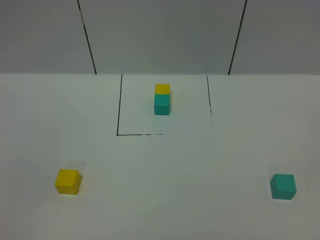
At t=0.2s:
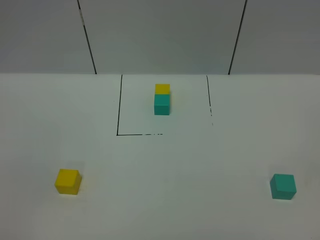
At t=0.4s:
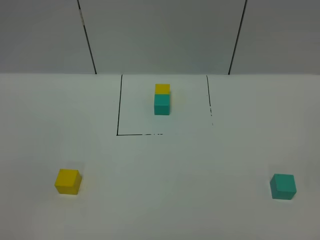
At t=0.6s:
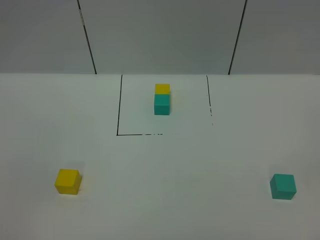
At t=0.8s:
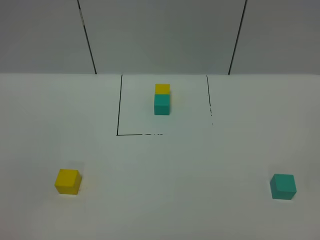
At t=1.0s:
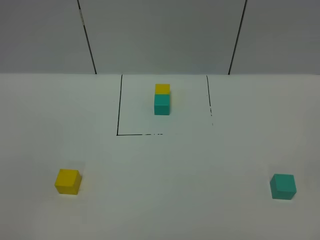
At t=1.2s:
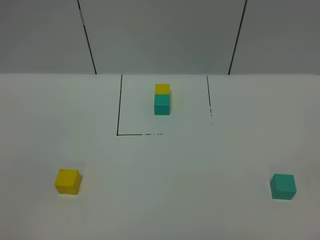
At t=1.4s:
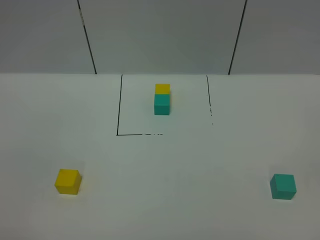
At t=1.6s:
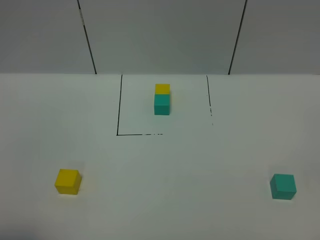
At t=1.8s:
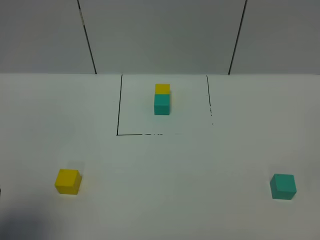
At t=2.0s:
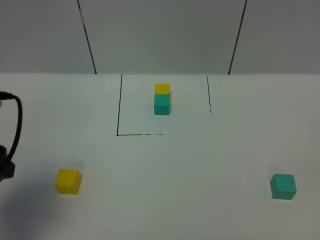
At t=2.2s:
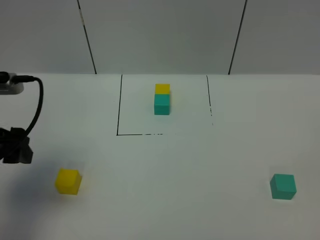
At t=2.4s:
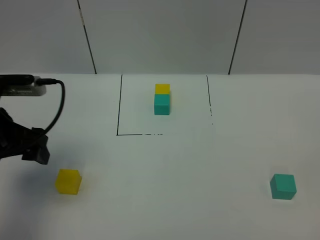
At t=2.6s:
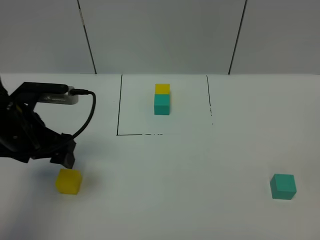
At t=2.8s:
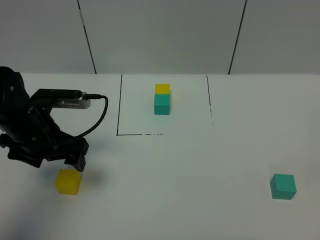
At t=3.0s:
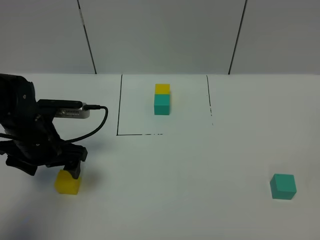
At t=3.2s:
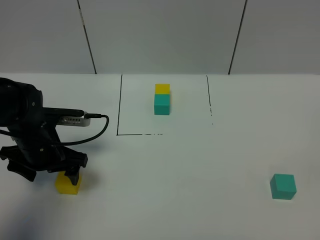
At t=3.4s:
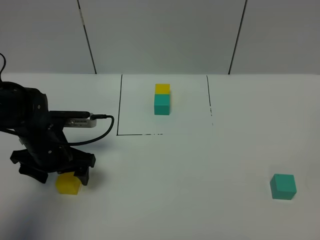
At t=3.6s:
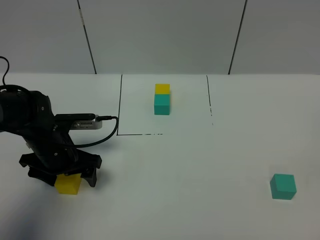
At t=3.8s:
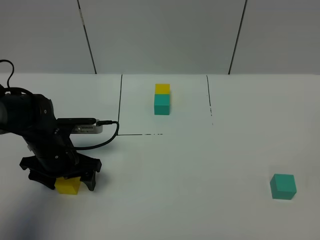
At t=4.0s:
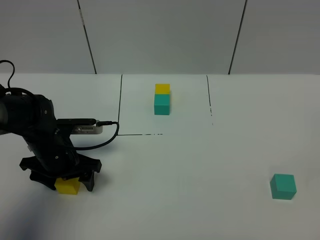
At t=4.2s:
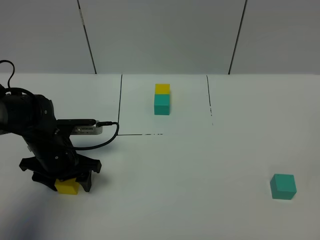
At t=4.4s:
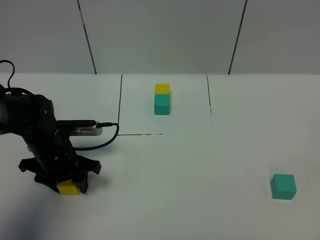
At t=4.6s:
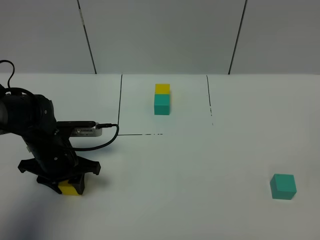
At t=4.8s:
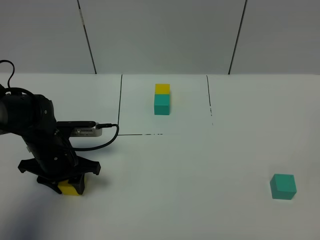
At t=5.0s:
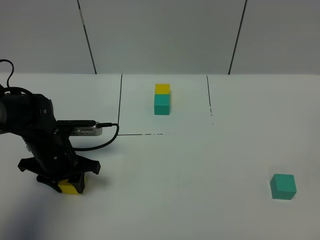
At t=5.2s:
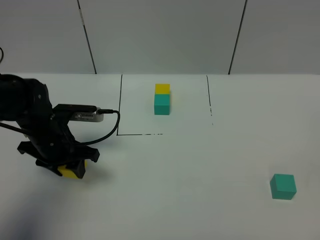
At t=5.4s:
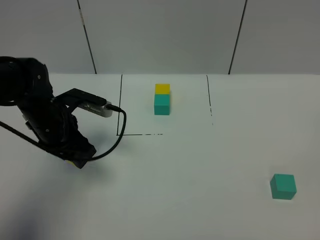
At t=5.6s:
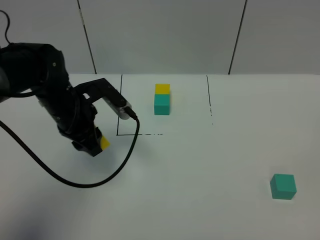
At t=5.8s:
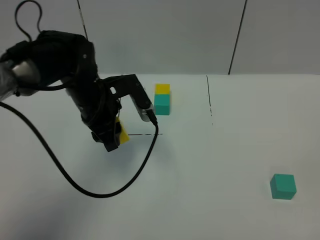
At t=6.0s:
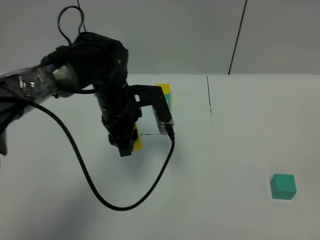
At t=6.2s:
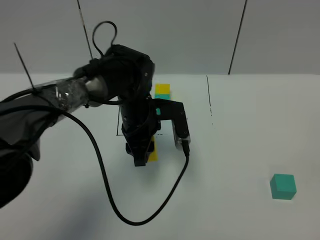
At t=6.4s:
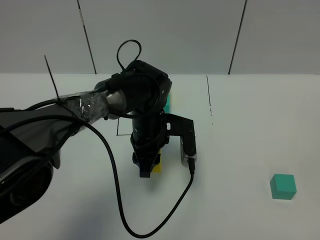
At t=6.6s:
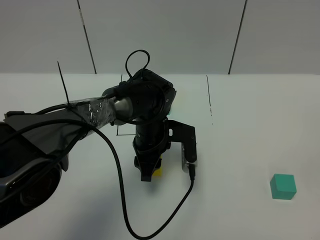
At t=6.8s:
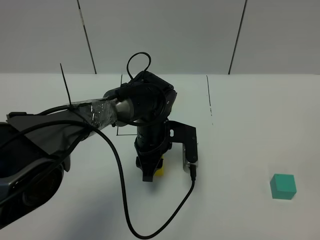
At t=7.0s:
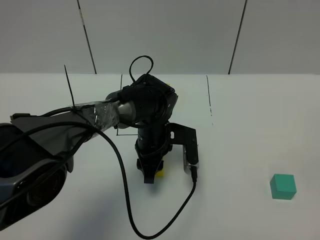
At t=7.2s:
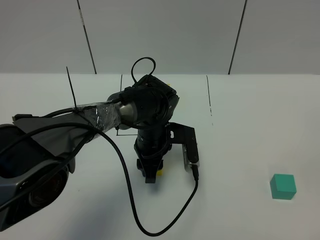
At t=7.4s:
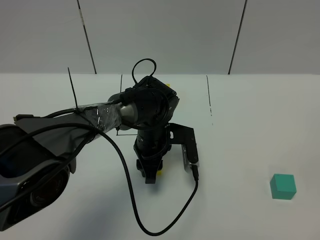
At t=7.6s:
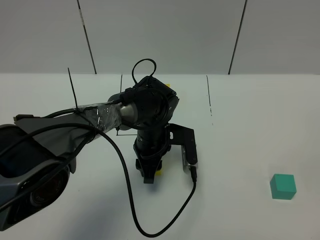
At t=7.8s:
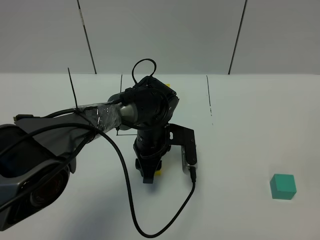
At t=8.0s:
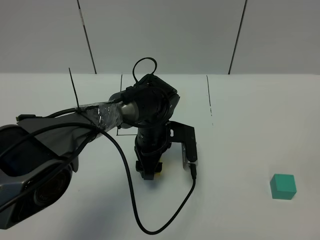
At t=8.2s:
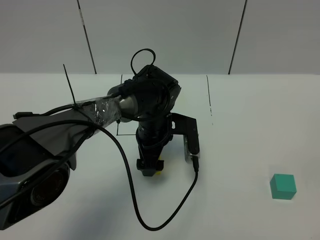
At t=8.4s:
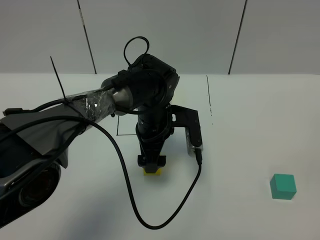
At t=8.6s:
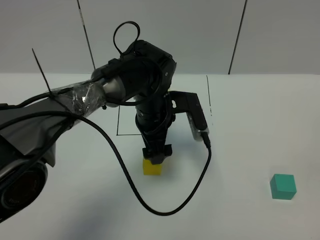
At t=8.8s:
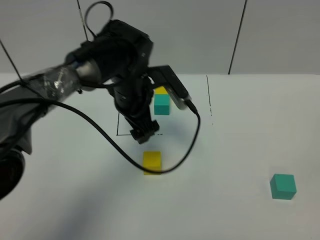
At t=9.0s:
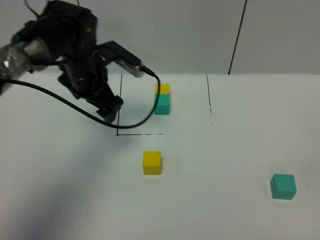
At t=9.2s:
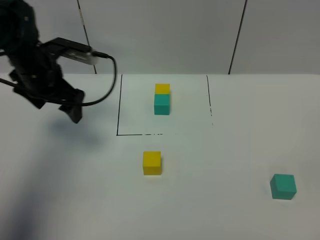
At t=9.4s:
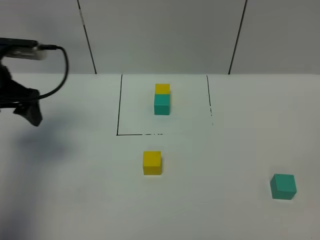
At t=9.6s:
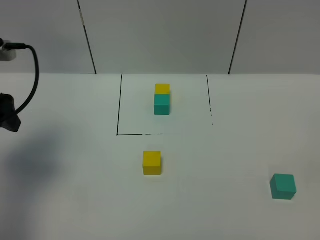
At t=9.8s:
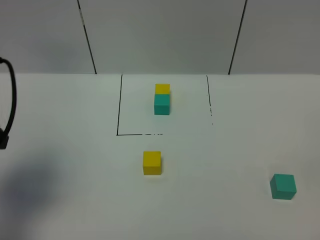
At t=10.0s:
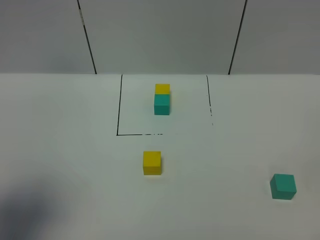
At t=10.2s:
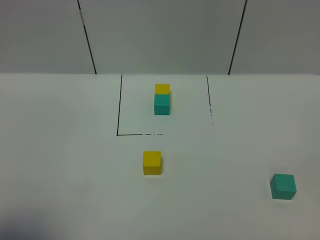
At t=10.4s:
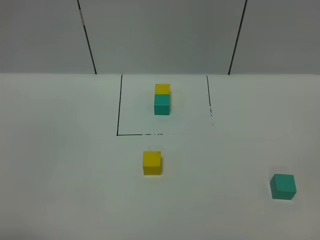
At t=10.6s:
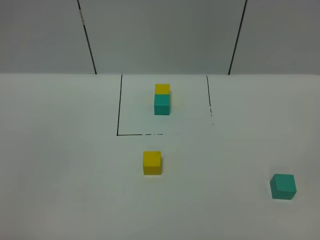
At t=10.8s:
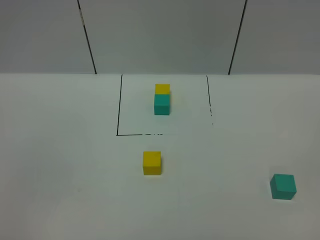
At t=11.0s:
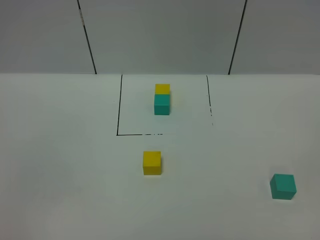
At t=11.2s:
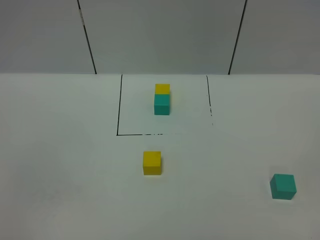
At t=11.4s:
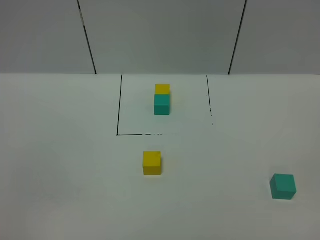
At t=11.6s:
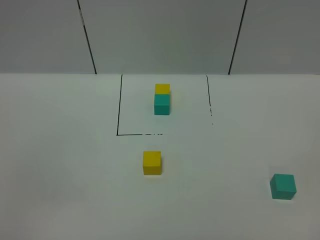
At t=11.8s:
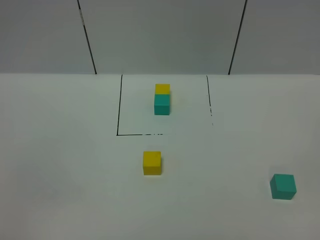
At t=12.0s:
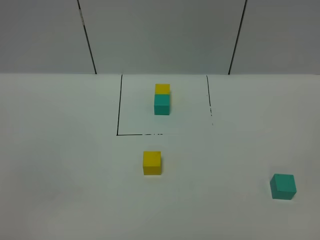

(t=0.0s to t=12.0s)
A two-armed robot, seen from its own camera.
Task of the whole recording: According to the building block template in front, assemble the scattered blocks together.
Step, t=1.8s - t=8.0s: Put the yellow cube in the center of the table.
t=1.6s - t=3.0s: The left gripper moves forward and downward, approximately 25 cm.
t=3.0s - t=4.4s: The left gripper travels downward by approximately 5 cm, and closes up.
t=4.4s - t=6.0s: The left gripper shifts some 15 cm to the right and upward.
t=6.0s - t=7.6s: The left gripper is displaced downward and to the right by approximately 10 cm.
t=7.6s - t=9.0s: The left gripper is displaced to the left, upward and forward by roughly 20 cm, and opens.
t=9.0s - t=10.4s: The left gripper shifts roughly 40 cm backward.

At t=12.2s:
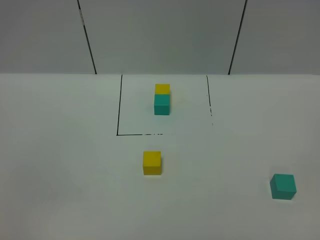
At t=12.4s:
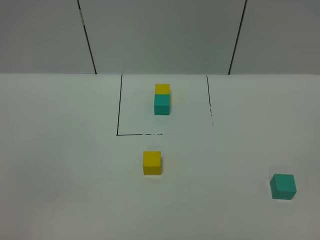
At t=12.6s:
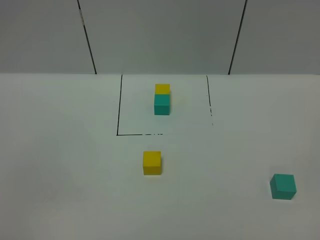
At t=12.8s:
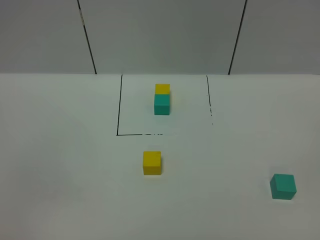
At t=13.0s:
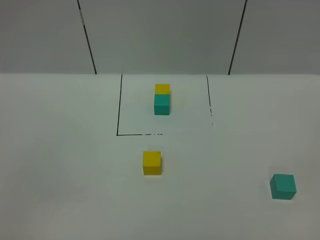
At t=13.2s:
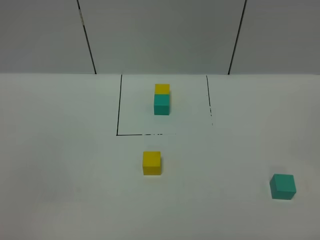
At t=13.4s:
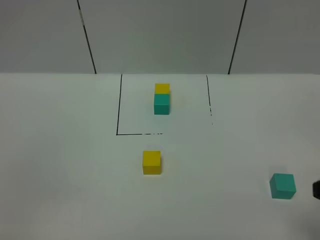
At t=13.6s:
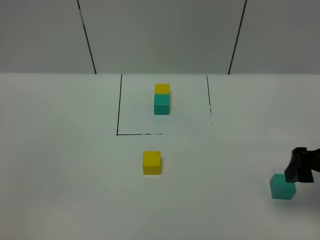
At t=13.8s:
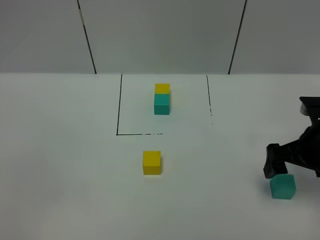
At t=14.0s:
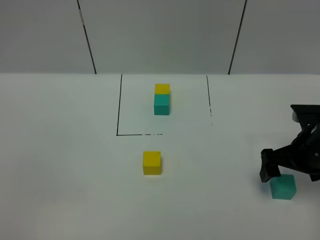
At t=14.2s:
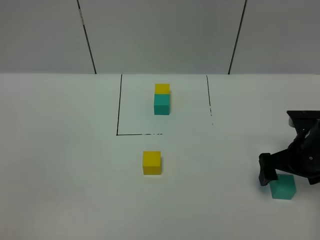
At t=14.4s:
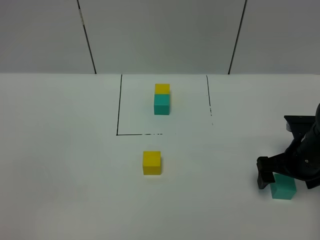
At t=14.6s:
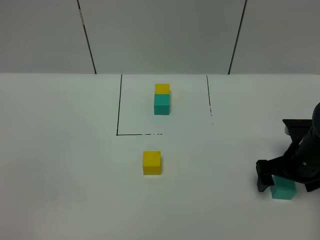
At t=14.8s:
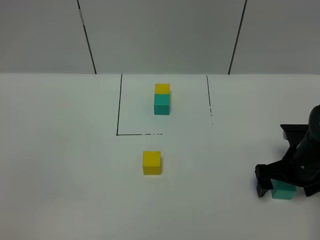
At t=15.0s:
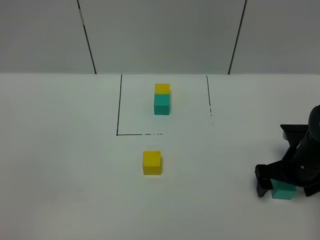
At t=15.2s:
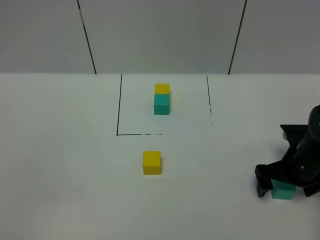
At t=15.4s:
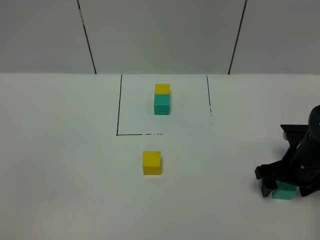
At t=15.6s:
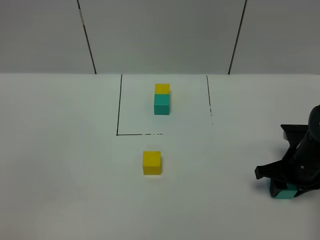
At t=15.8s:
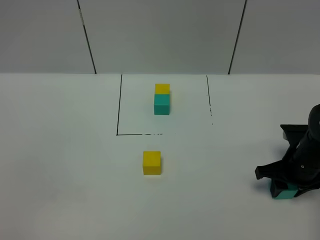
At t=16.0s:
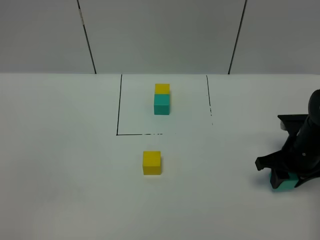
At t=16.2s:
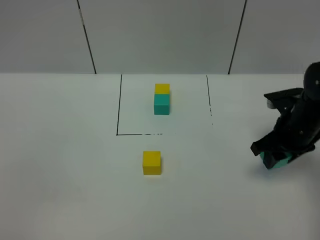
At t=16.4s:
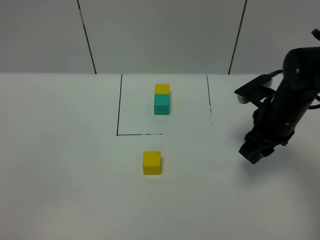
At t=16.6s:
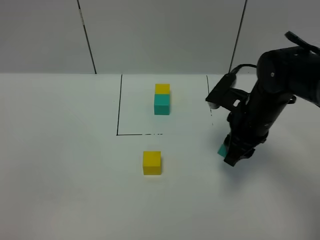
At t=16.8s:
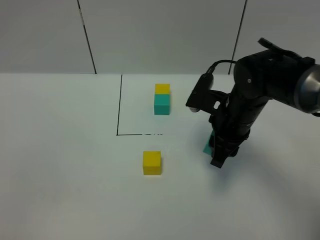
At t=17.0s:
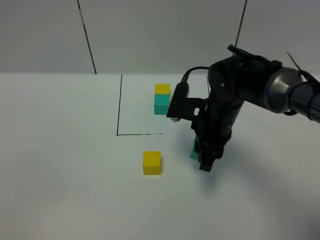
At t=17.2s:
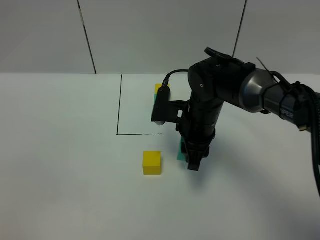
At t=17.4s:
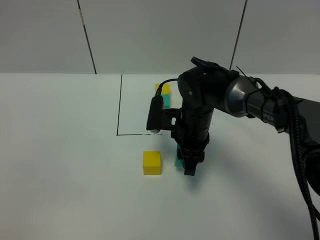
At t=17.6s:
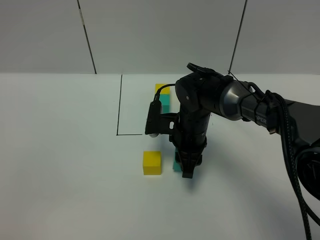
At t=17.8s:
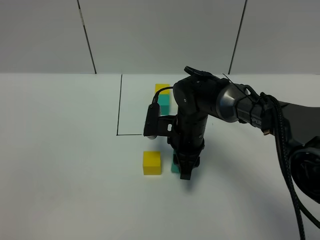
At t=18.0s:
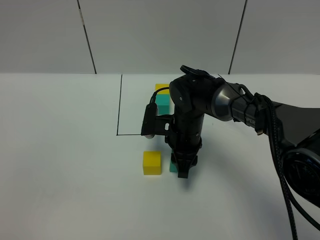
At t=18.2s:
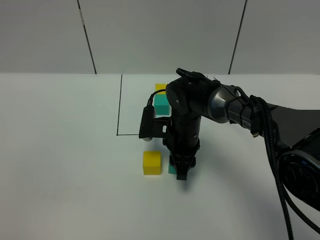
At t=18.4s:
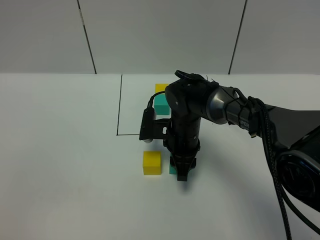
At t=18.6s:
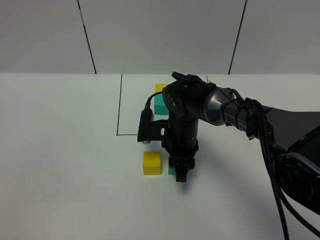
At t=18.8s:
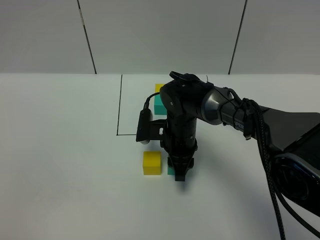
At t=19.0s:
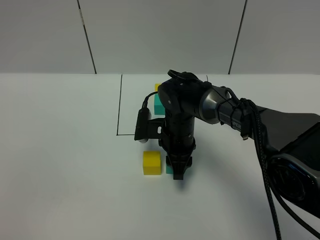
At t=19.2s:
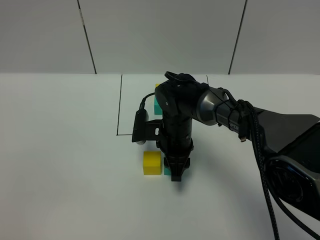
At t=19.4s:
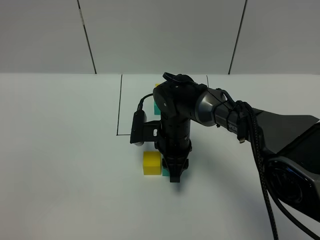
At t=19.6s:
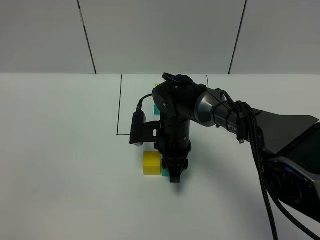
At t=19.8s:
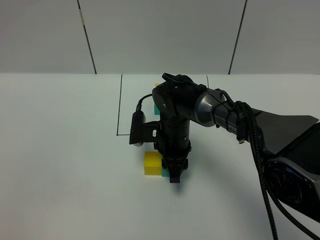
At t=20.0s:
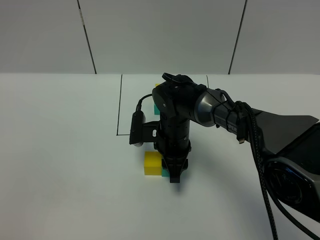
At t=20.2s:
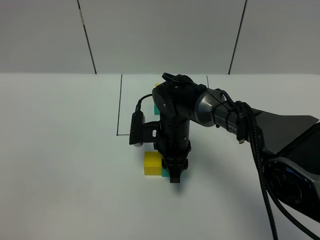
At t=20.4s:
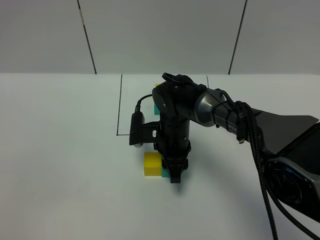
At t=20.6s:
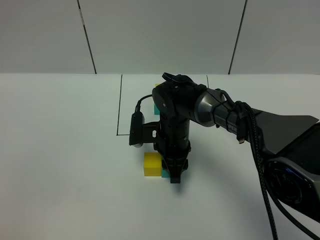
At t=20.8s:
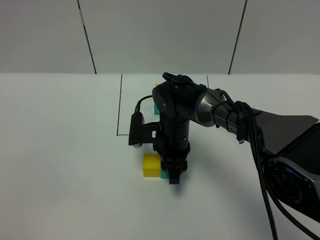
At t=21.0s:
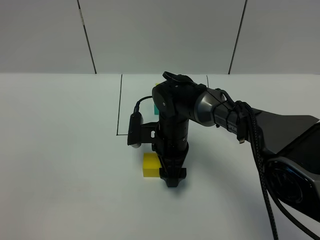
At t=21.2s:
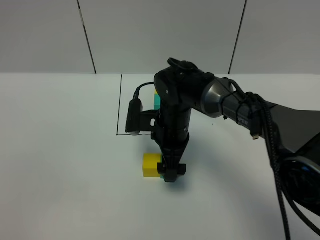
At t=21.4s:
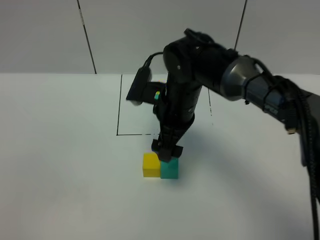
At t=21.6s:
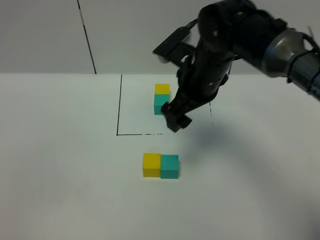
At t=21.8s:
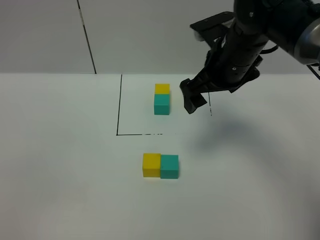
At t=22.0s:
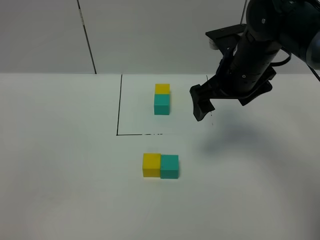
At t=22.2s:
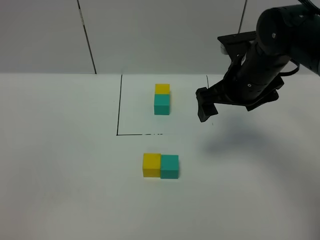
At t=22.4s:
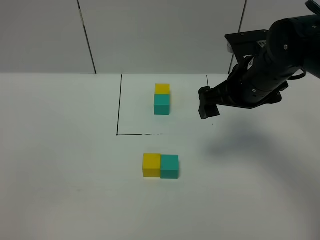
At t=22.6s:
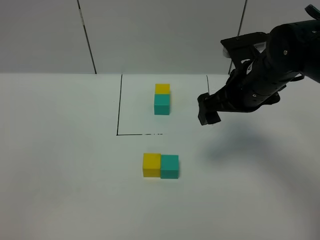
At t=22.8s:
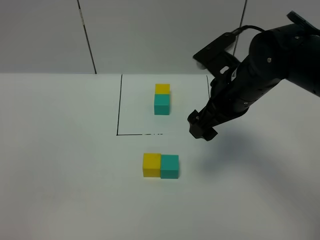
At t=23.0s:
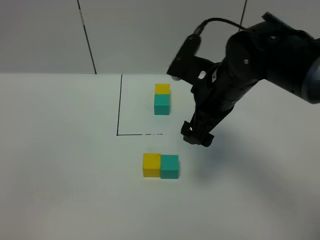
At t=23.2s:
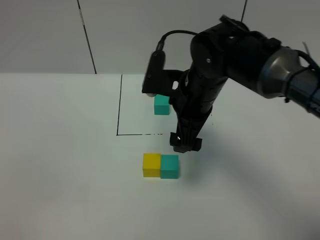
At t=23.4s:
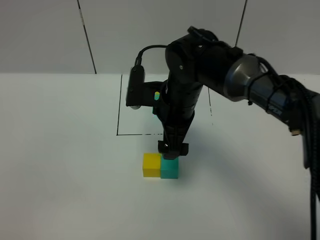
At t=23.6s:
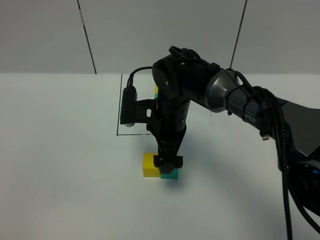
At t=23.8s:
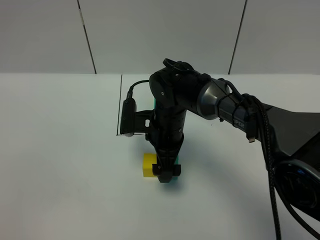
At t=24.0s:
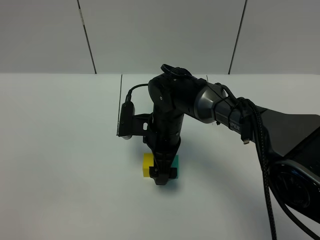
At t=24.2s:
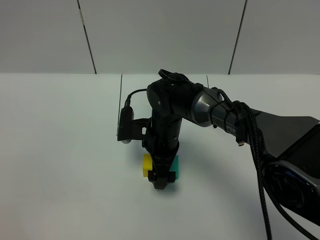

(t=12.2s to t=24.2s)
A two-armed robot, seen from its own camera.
Task of the whole recording: According to the building block template in front, assemble the scattered blocks together.
Step, t=12.2s - t=20.8s: Put the green cube on the right of the yellow cube.
t=12.2s - t=13.8s: The right gripper heads forward, covering some 30 cm.
t=13.8s - t=15.2s: The right gripper goes about 10 cm downward.
t=15.2s - t=16.6s: The right gripper heads to the left and upward, covering about 15 cm, and closes its fingers.
t=16.6s - t=18.2s: The right gripper shifts roughly 15 cm to the left and downward.
t=18.2s - t=19.8s: There are only small adjustments of the grippers.
t=19.8s - t=21.2s: The right gripper opens its fingers.
t=21.2s - t=22.6s: The right gripper travels to the right and upward by about 15 cm.
t=22.6s - t=24.2s: The right gripper is displaced to the left and downward by approximately 20 cm.
